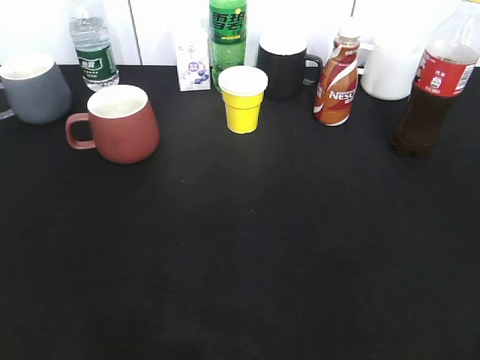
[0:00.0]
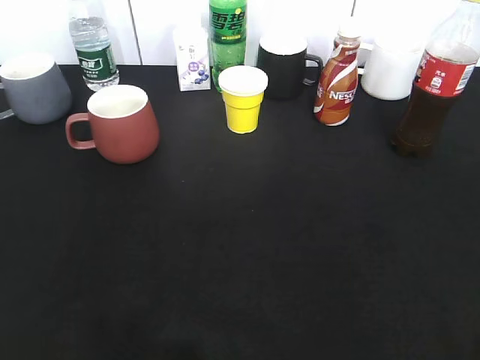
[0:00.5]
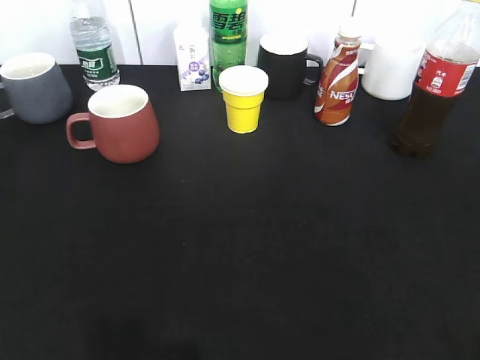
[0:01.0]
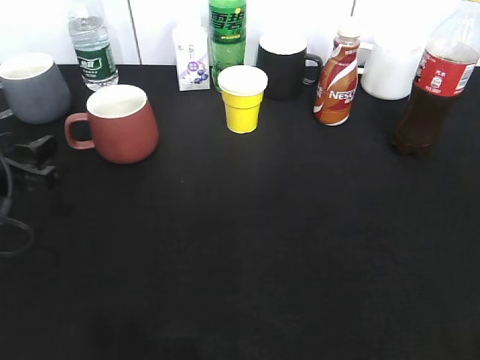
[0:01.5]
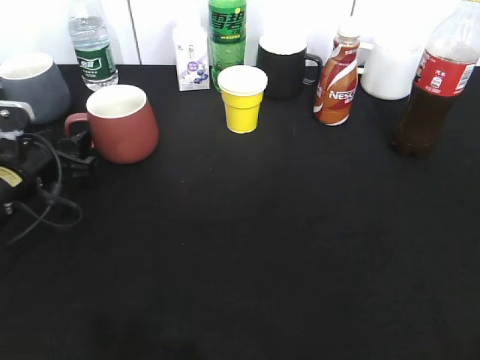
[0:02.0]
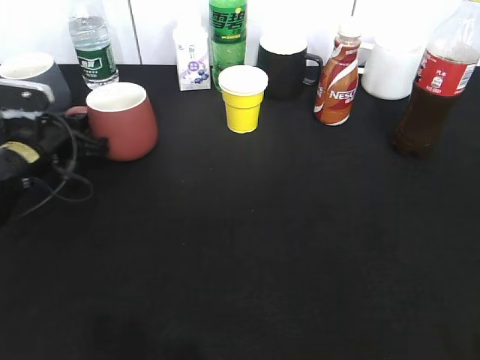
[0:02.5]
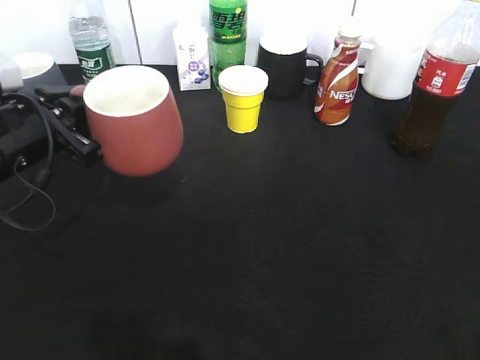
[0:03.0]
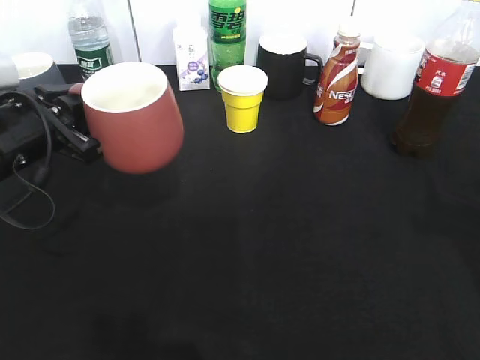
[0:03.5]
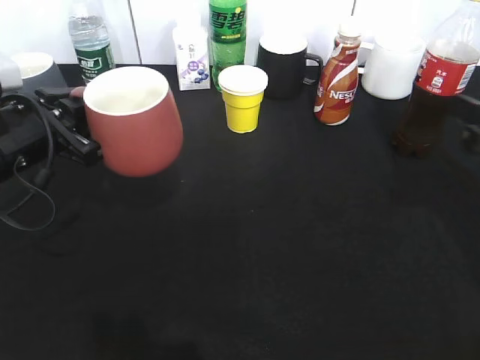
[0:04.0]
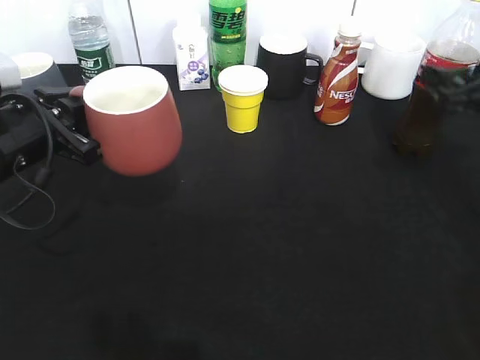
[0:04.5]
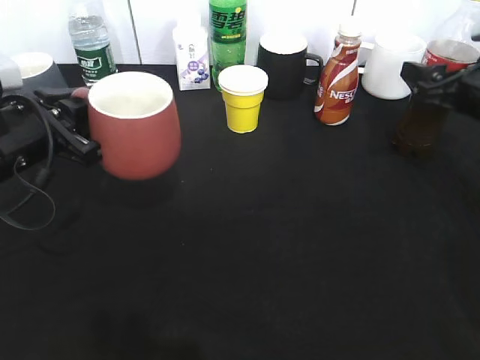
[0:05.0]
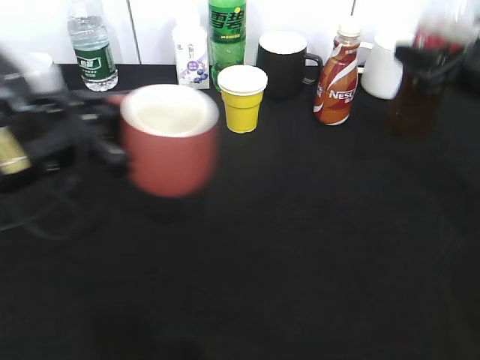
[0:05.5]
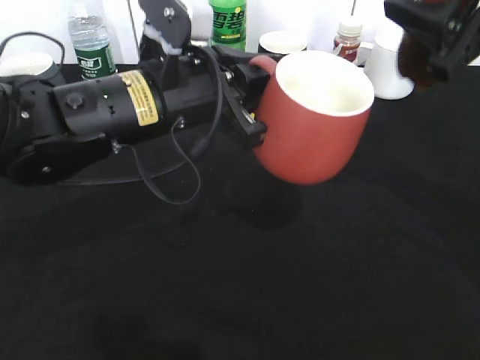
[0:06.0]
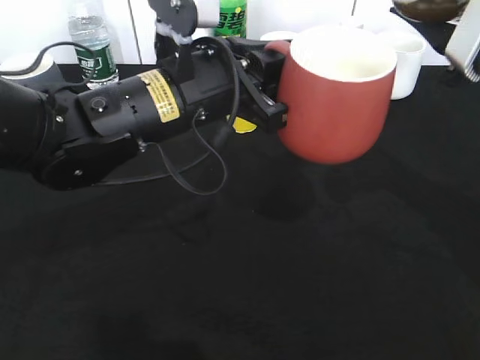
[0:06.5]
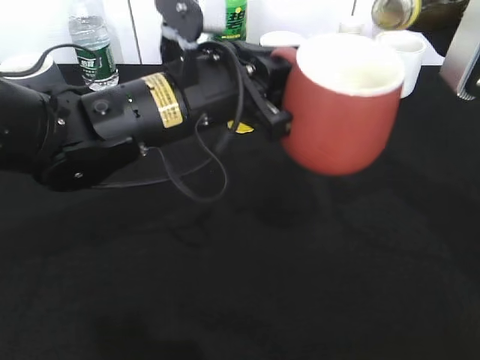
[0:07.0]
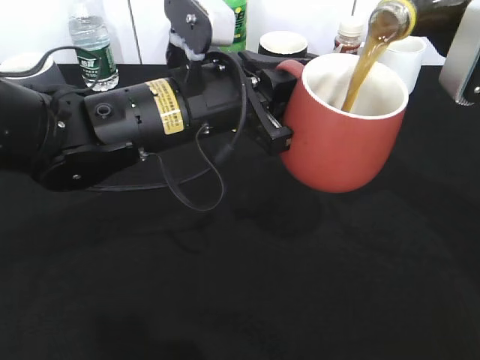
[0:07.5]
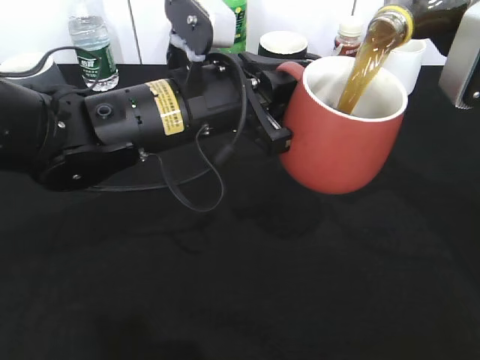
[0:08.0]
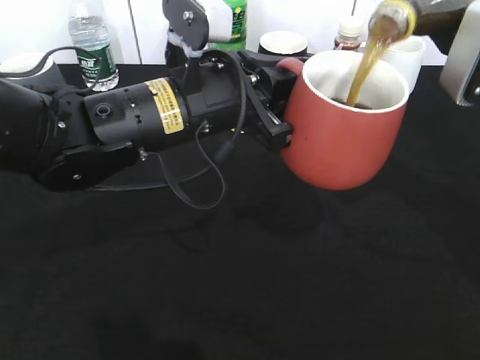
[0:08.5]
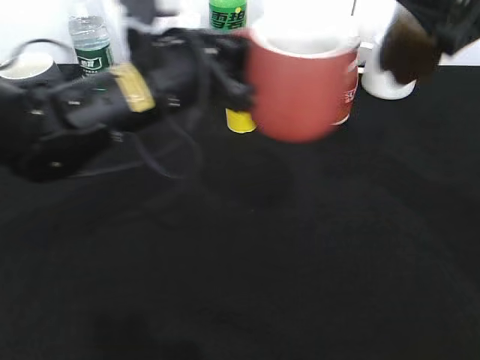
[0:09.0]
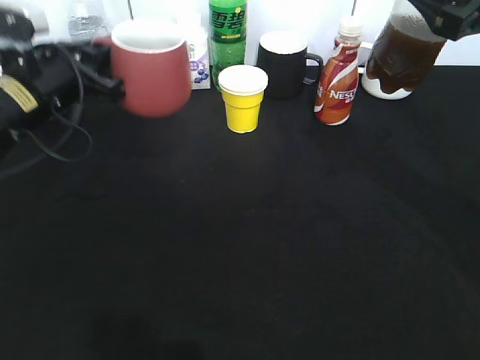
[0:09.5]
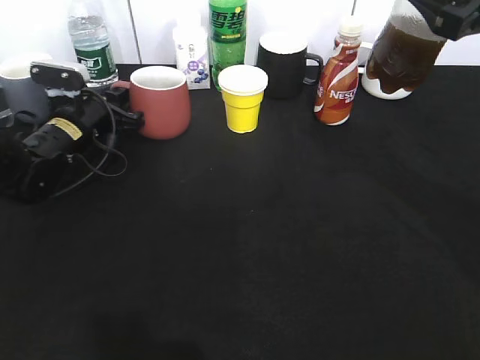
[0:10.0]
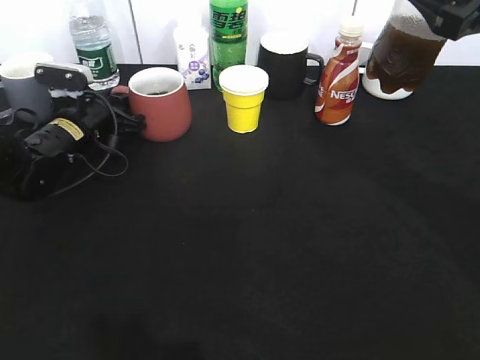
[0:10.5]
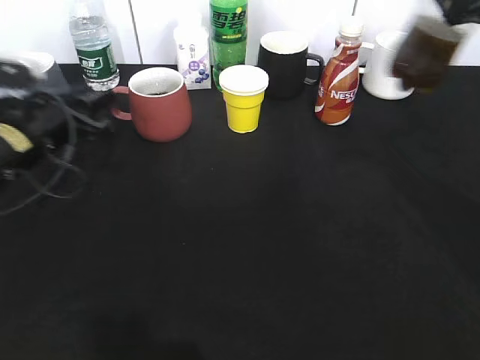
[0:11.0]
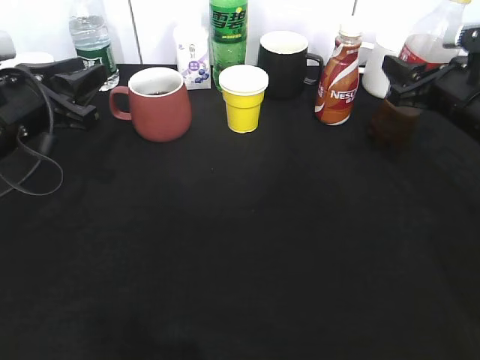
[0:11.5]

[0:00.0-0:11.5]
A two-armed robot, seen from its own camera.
Step, 0:01.0 to 0:02.0: Grasp the red cup with left gripper.
Step, 0:02.5 to 0:03.5: Lift the red cup with left gripper.
Step, 0:04.0 to 0:05.0: Grasp the bottle with cola with right gripper.
Step, 0:05.5 to 0:08.5: Pour the cola from bottle to cup with right gripper.
0:00.0 to 0:02.0: The left gripper moves forward and downward, approximately 35 cm.
0:02.0 to 0:04.0: The right gripper travels forward by some 25 cm, and opens. Meanwhile the left gripper goes some 5 cm upward, and closes.
0:04.0 to 0:06.0: The right gripper goes about 10 cm upward and to the left, and closes up. The left gripper goes approximately 15 cm to the right.
0:07.5 to 0:09.5: The left gripper heads to the left and forward, covering about 20 cm.
0:09.5 to 0:11.5: The left gripper goes roughly 5 cm backward, and opens, while the right gripper moves downward and forward, roughly 15 cm.

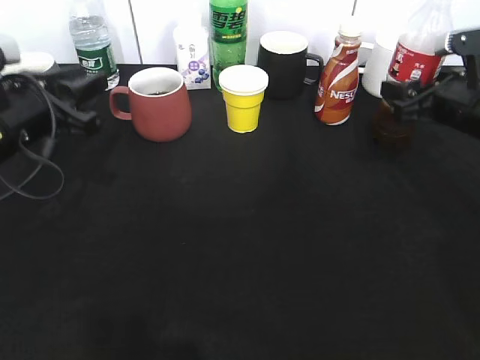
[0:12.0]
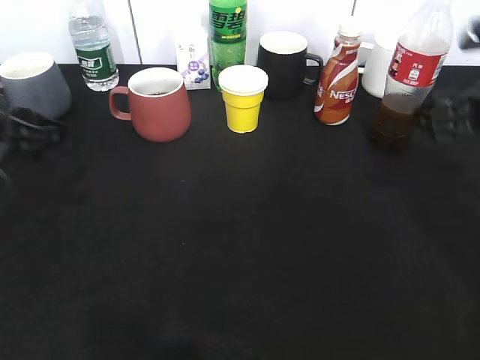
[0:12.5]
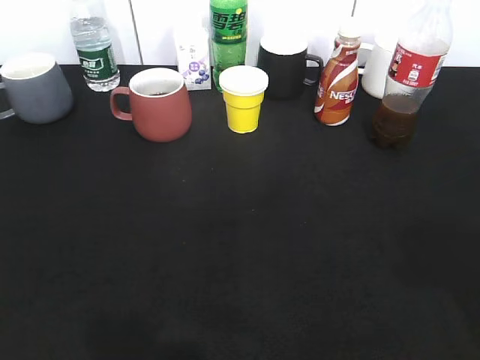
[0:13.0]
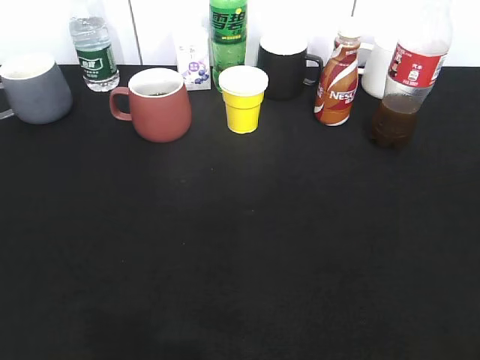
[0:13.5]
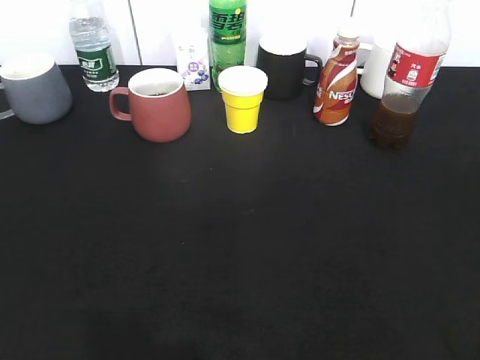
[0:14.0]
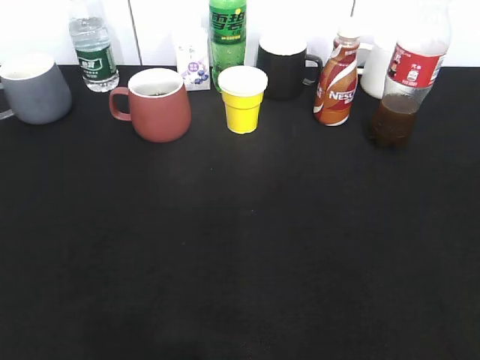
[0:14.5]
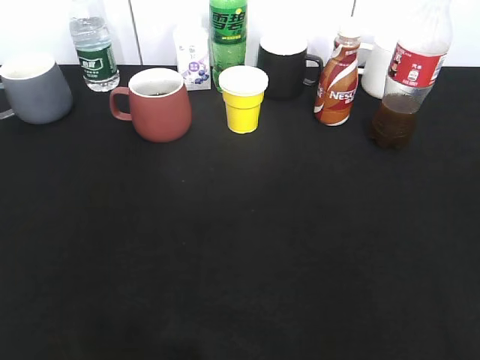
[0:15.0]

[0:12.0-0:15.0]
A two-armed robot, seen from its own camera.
0:12.0 to 0:13.5: The grippers both shift backward by approximately 30 cm.

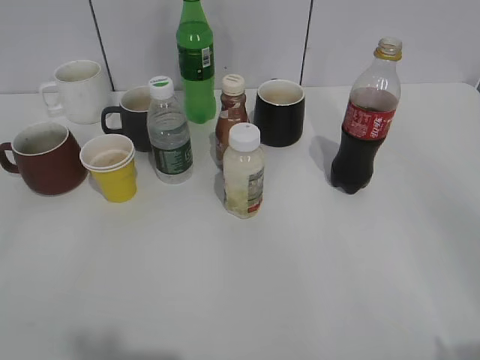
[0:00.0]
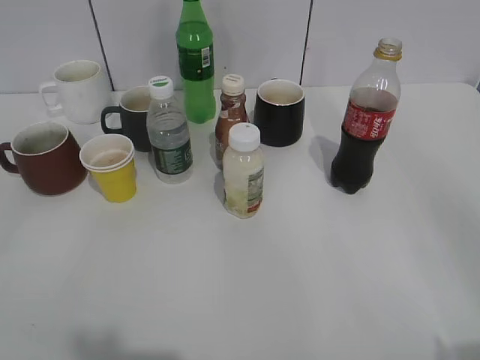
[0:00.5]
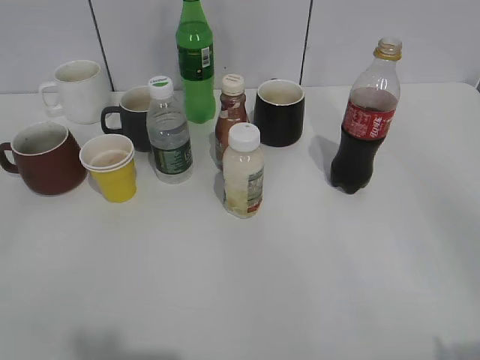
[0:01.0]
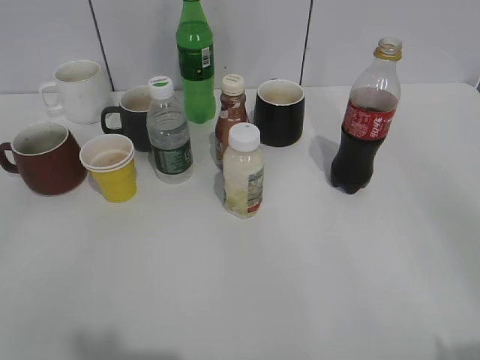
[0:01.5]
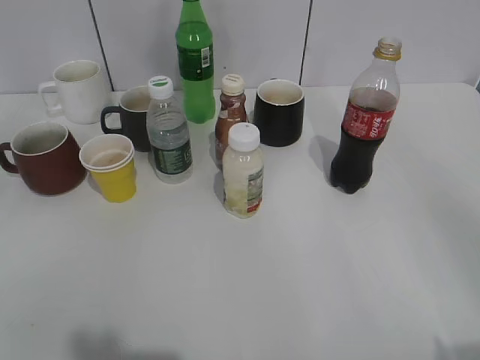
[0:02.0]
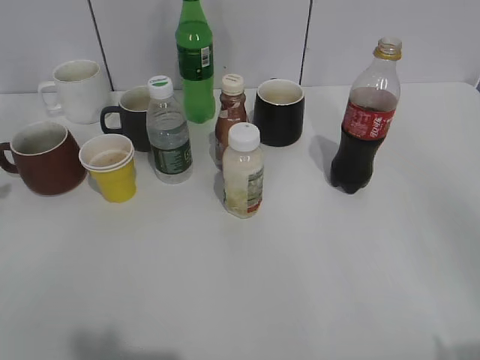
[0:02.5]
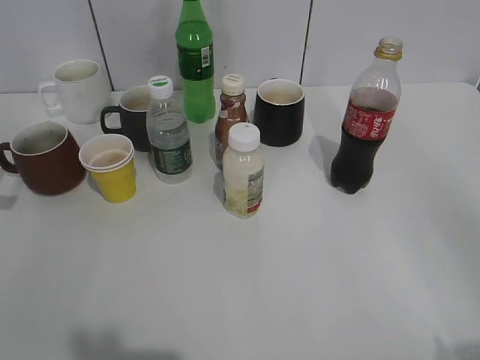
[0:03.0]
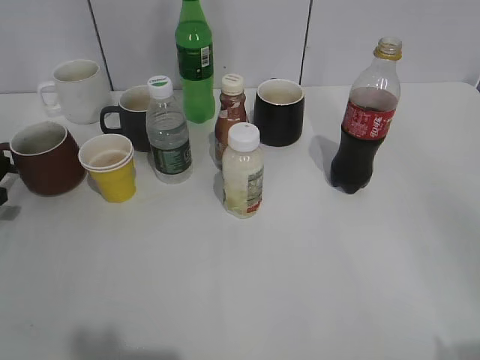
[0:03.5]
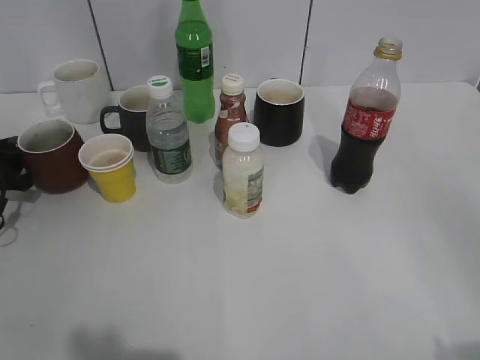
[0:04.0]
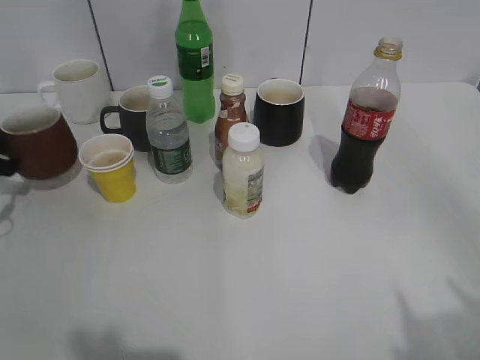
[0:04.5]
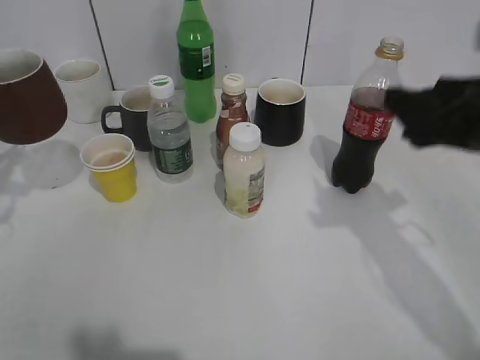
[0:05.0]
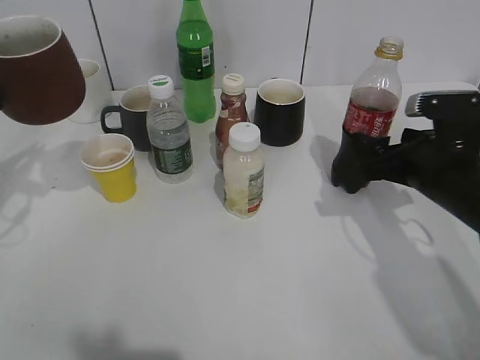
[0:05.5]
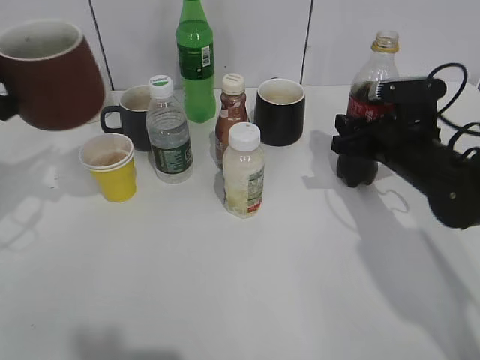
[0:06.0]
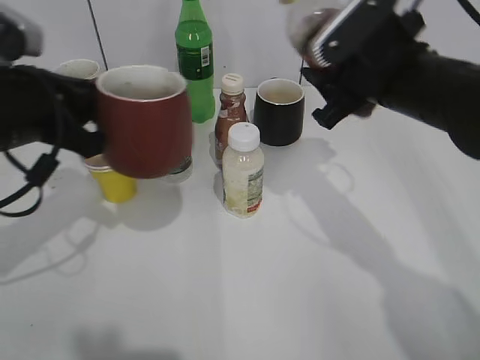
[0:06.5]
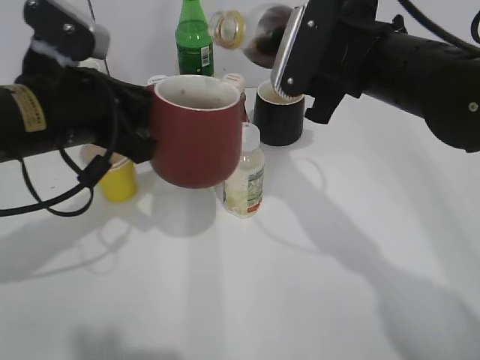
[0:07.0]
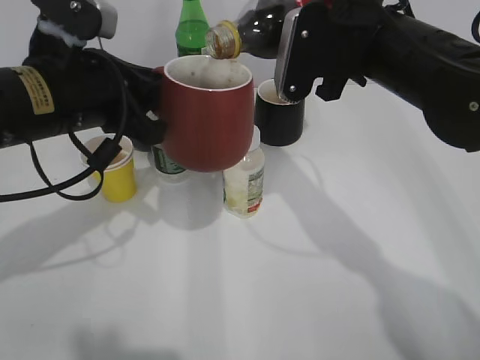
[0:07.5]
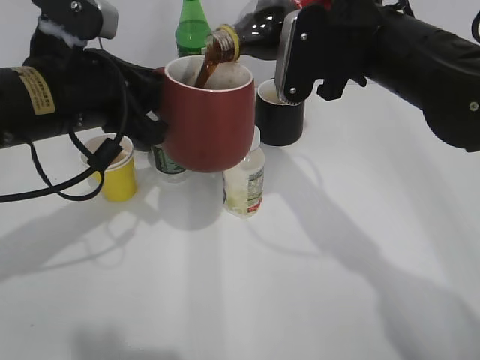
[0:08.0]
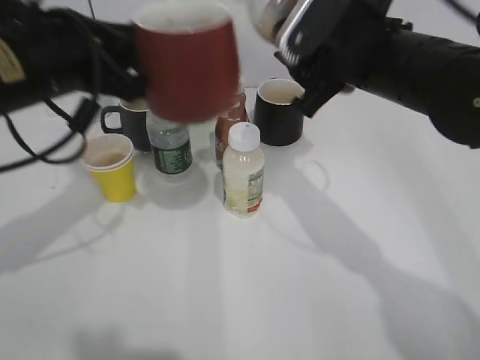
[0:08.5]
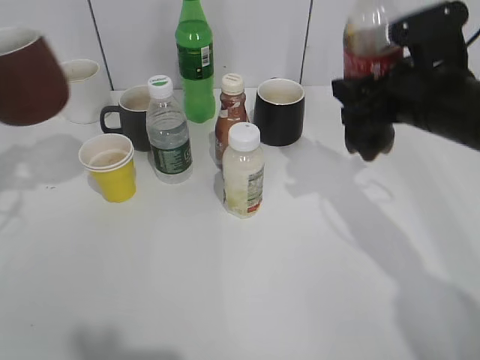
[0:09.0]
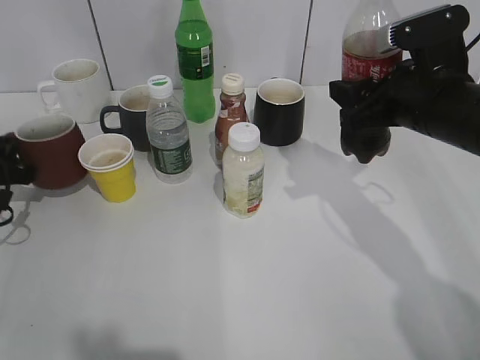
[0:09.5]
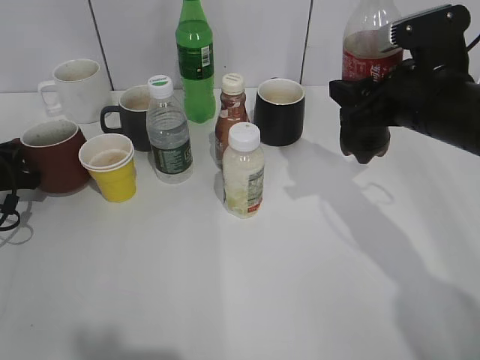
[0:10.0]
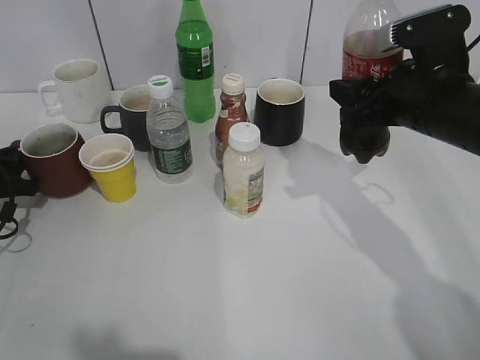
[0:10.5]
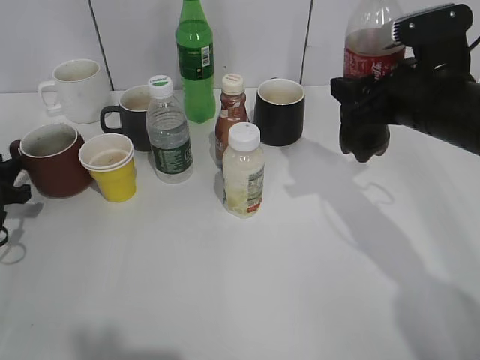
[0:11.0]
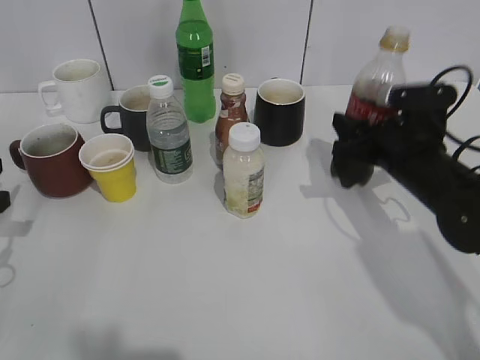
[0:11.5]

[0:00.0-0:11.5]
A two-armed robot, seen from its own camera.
Step, 0:02.0 to 0:04.0: Grasp the red cup with left gripper.
Step, 0:04.5 to 0:05.5: Grasp the bottle with cola with right gripper.
Step, 0:06.0 to 0:08.5: Pour the cola from bottle to cup with right gripper.
0:02.0 to 0:04.0: The left gripper goes roughly 40 cm forward and downward.
0:04.0 to 0:06.0: The right gripper goes roughly 40 cm forward and downward, and closes its fingers. The left gripper goes some 20 cm upward and to the right, and closes up.
0:06.0 to 0:07.5: The right gripper heads upward and to the left, covering about 15 cm. Meanwhile the left gripper shifts about 15 cm to the right.
0:07.5 to 0:09.5: The left gripper is displaced to the left and downward by approximately 25 cm; the right gripper goes some 10 cm to the right and downward.
0:09.5 to 0:11.5: The left gripper is displaced backward by about 10 cm, and opens. Meanwhile the right gripper heads downward, covering roughly 10 cm.
